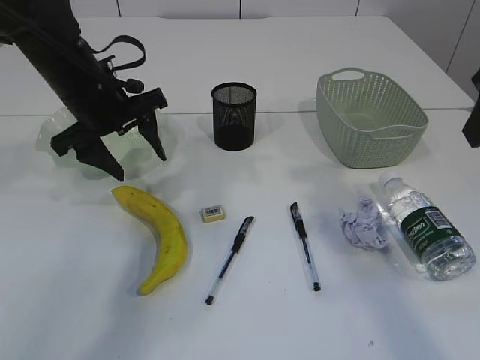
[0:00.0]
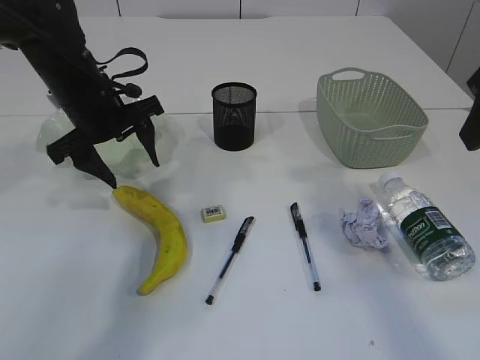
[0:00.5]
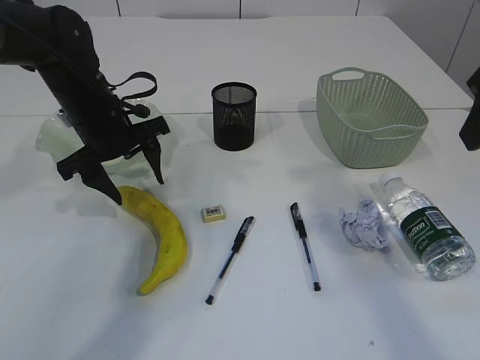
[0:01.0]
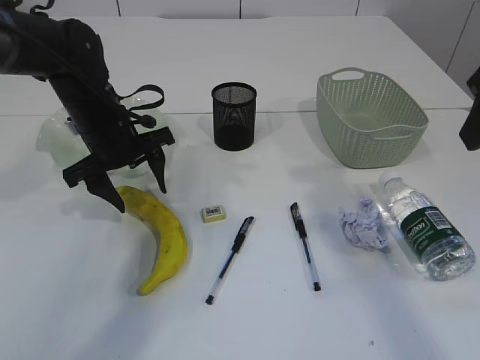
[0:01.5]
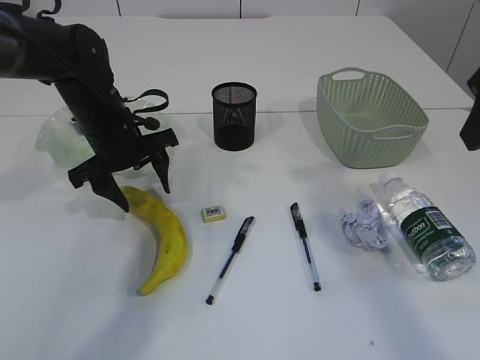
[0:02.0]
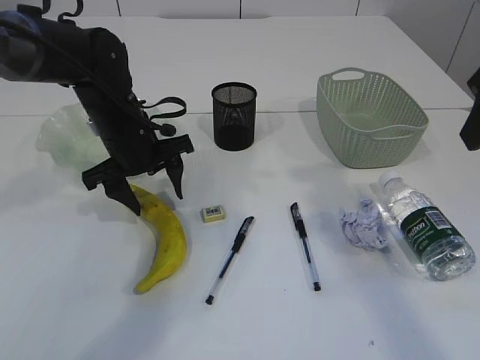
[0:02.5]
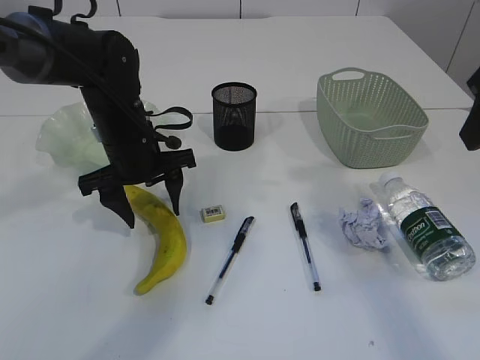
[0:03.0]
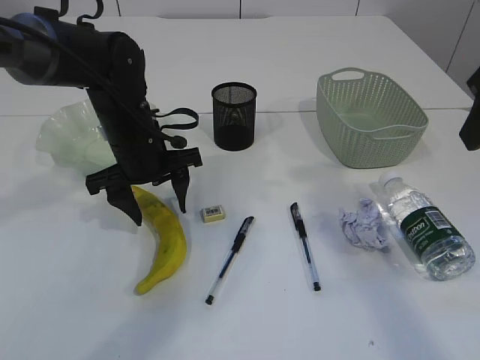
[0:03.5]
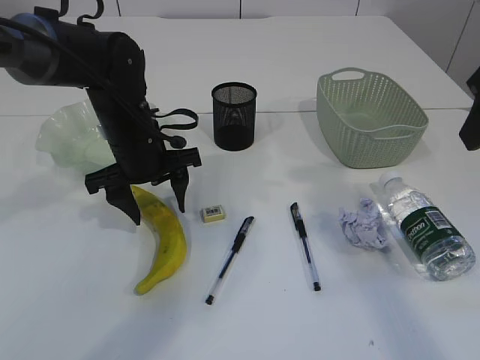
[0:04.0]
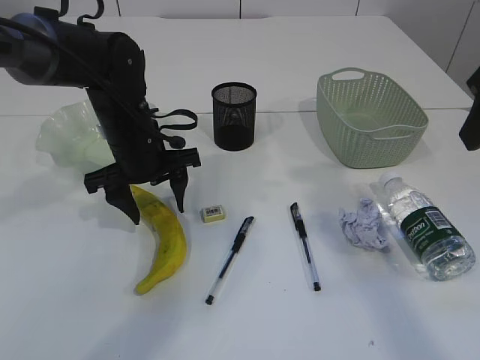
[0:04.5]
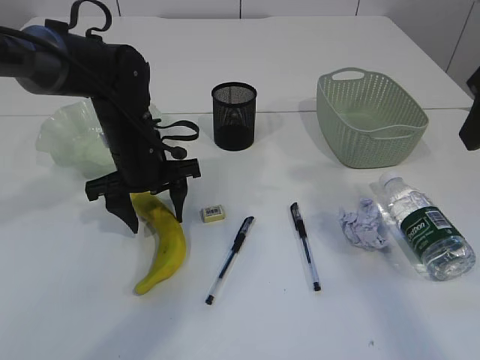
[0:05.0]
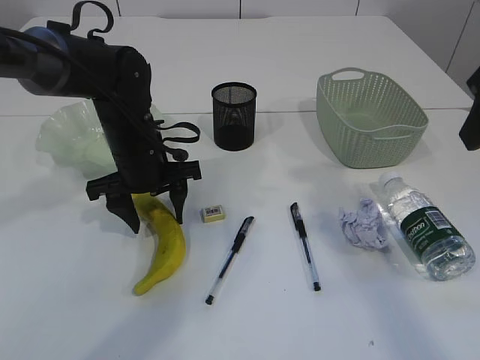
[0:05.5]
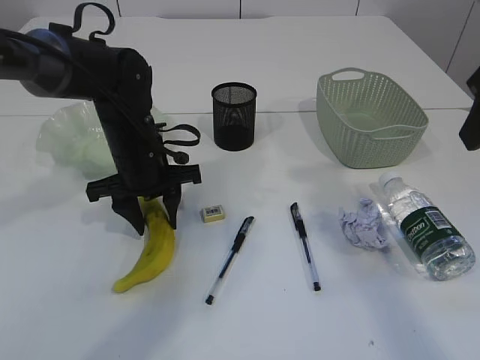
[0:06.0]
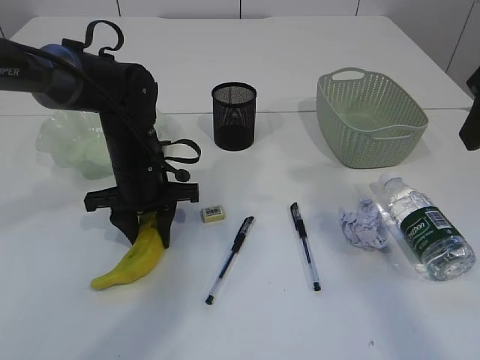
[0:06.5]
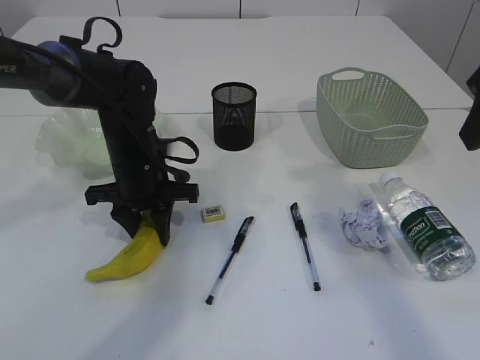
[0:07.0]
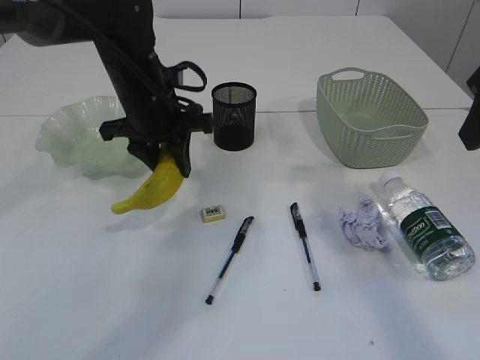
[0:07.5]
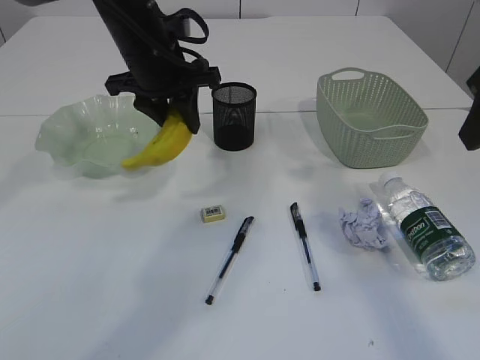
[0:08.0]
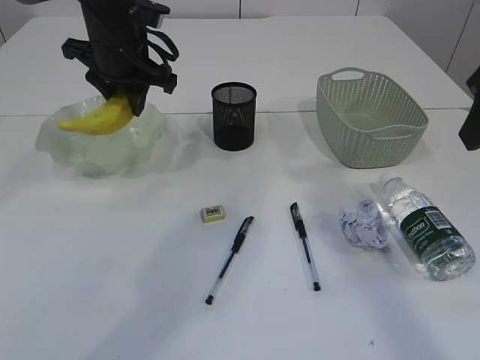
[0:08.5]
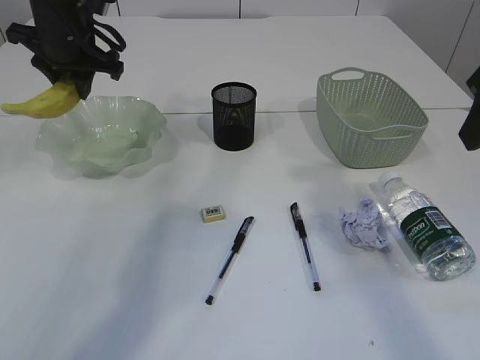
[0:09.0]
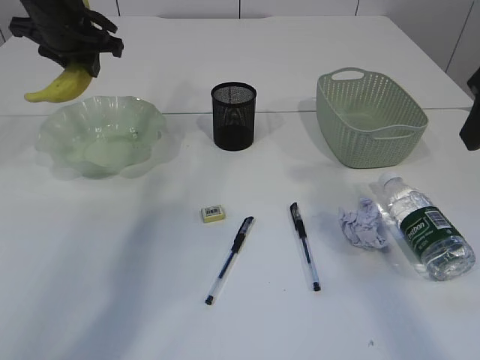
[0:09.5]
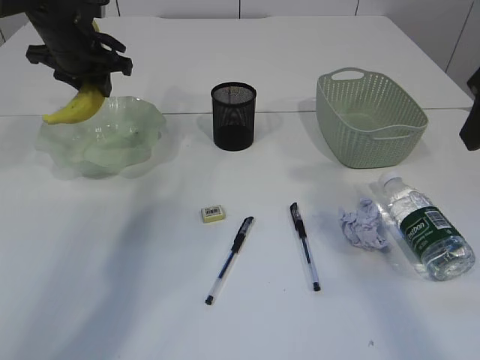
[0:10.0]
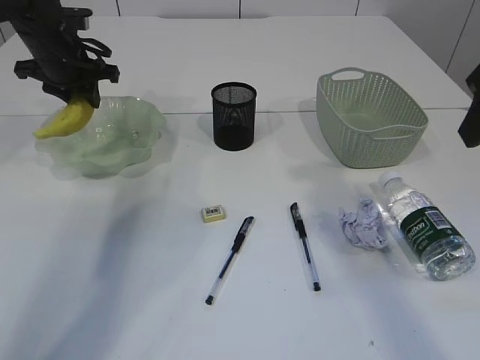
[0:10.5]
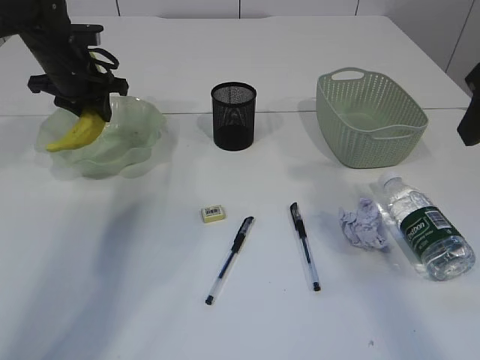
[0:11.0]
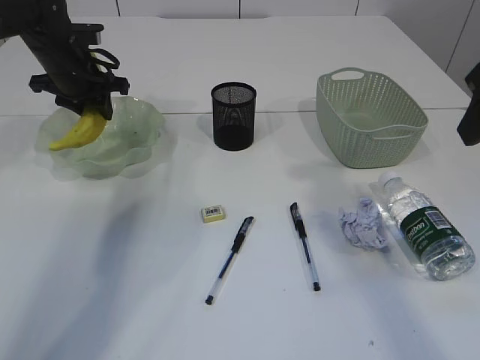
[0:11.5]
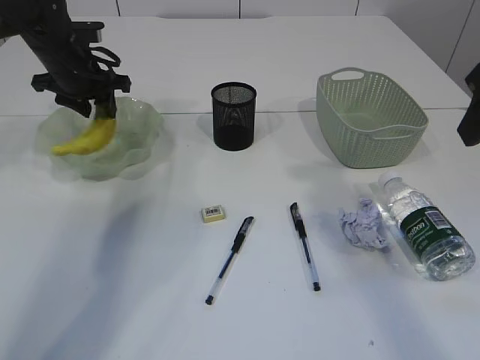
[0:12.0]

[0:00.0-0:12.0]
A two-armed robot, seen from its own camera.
0.0 to 2.0 s: The left gripper goes some 5 cm downward.
2.0 to 4.0 s: There are only small adjustments of the grippers.
4.0 to 6.0 s: The left gripper closes up.
6.0 to 8.0 s: The left gripper heads upward, covering roughly 10 cm, and closes up.
8.0 to 10.0 s: The left gripper travels to the left and forward by about 15 cm.
10.0 to 12.0 s: The grippers stay close to where they were, moving slightly.

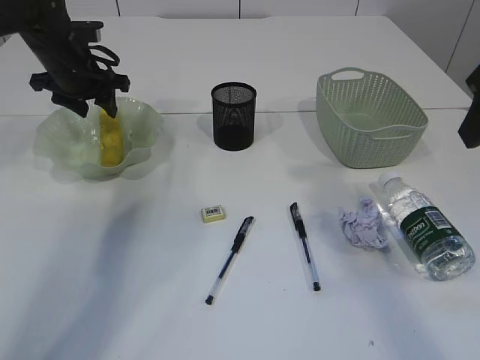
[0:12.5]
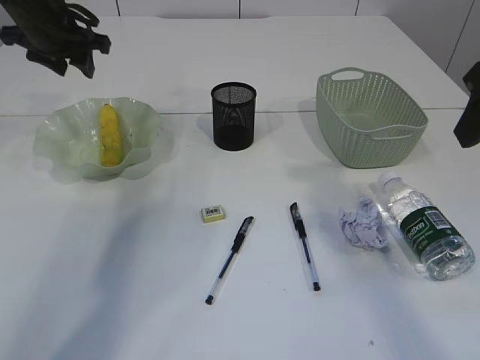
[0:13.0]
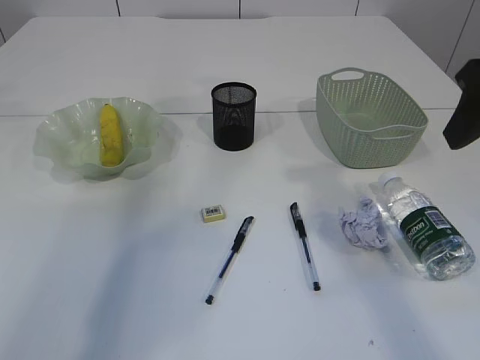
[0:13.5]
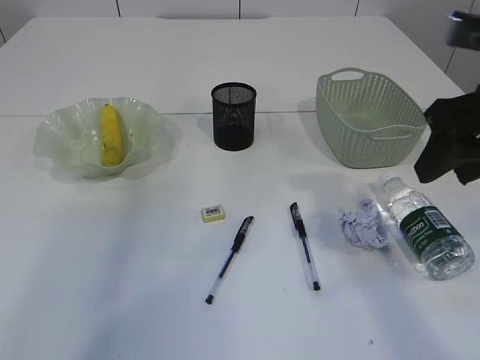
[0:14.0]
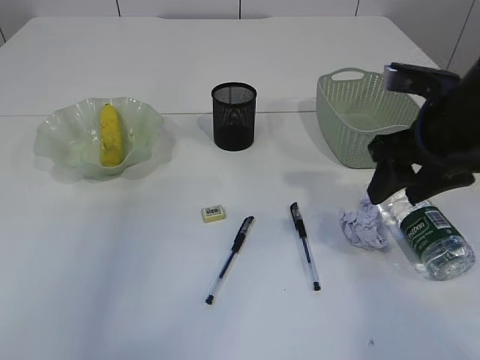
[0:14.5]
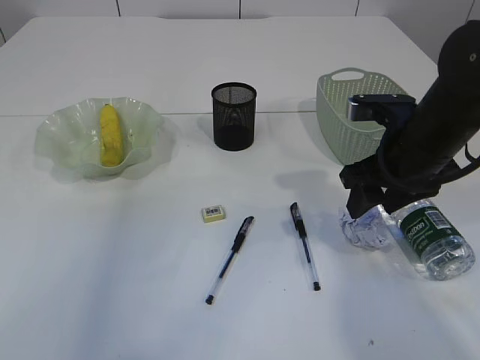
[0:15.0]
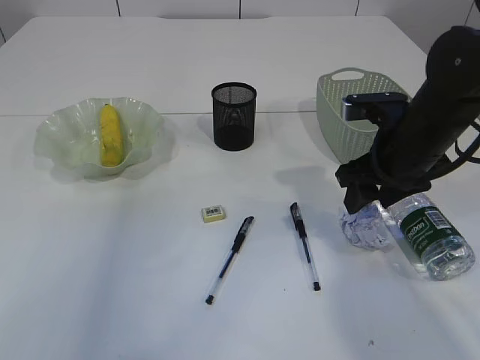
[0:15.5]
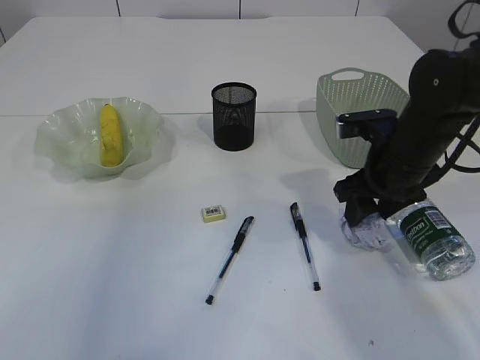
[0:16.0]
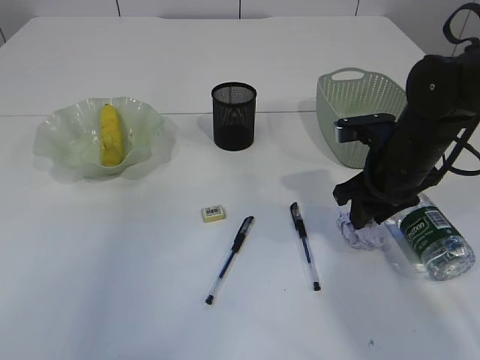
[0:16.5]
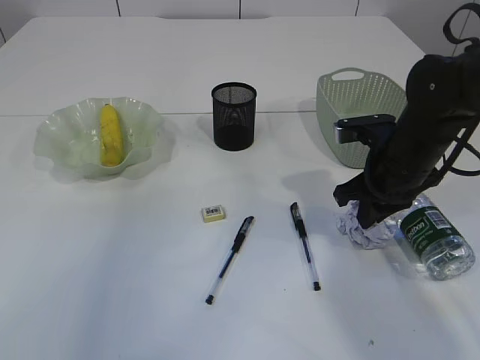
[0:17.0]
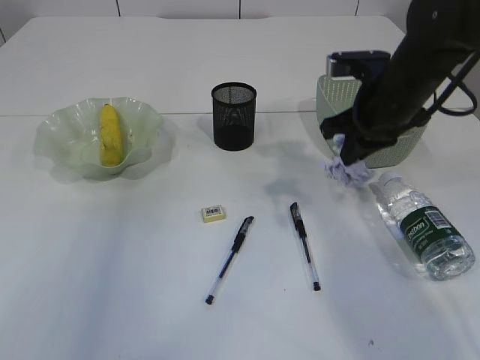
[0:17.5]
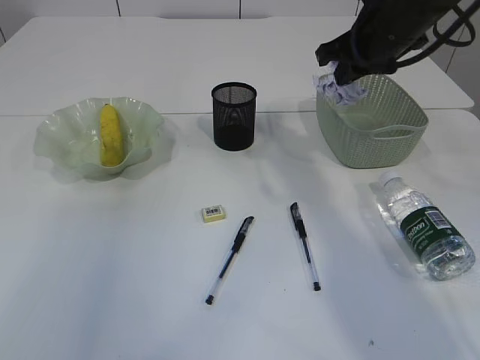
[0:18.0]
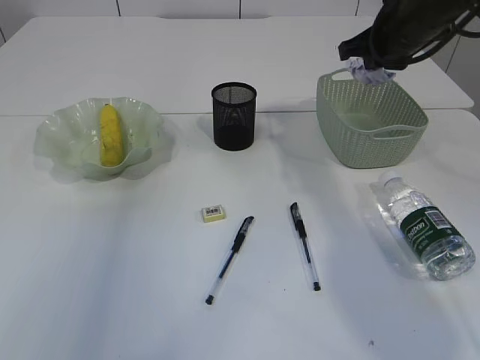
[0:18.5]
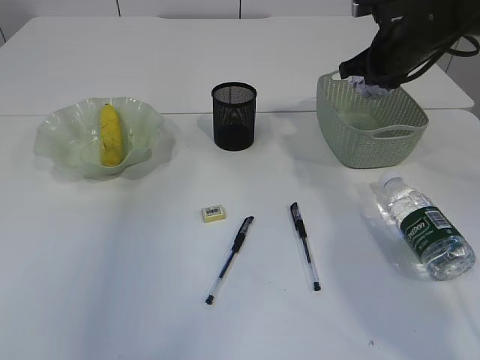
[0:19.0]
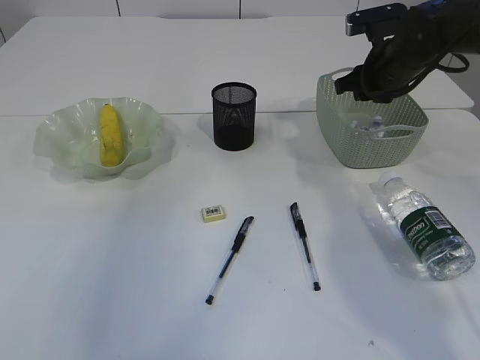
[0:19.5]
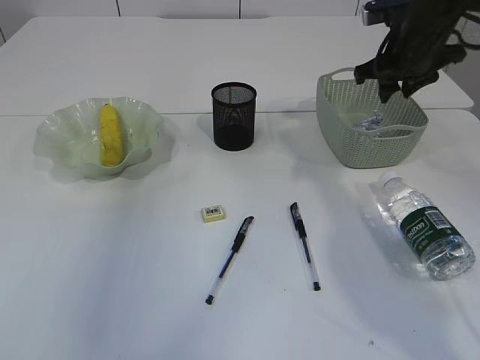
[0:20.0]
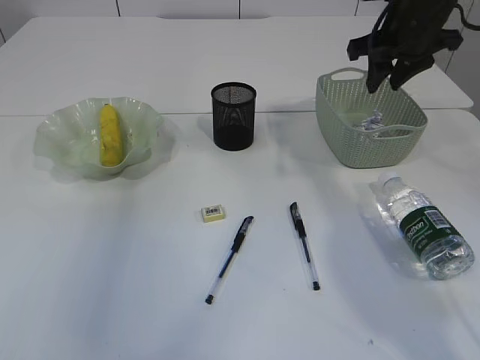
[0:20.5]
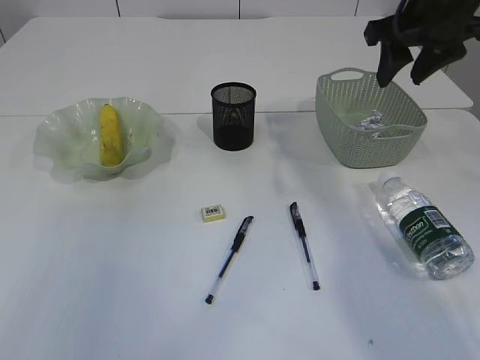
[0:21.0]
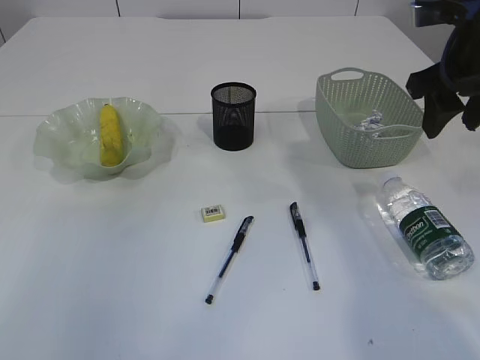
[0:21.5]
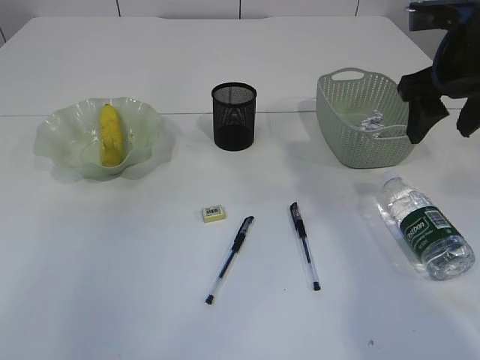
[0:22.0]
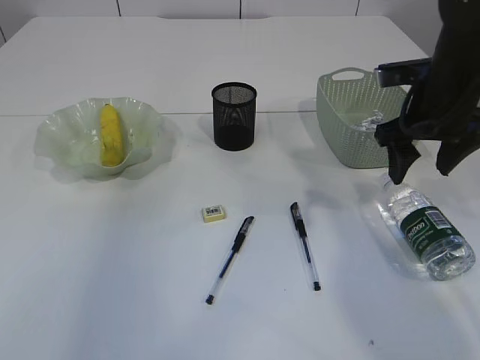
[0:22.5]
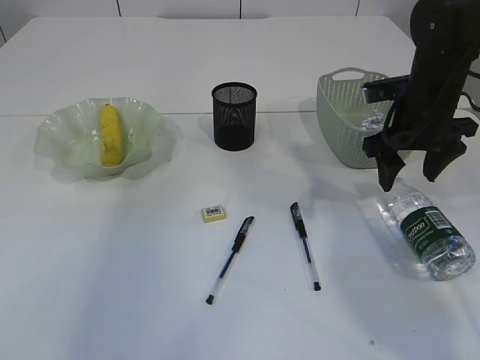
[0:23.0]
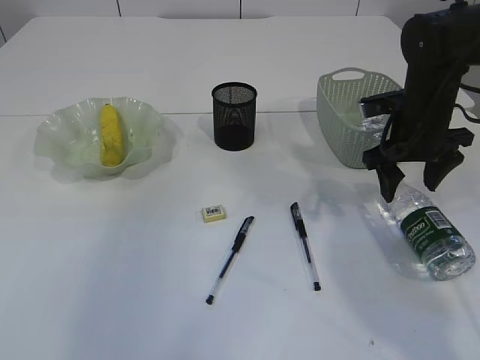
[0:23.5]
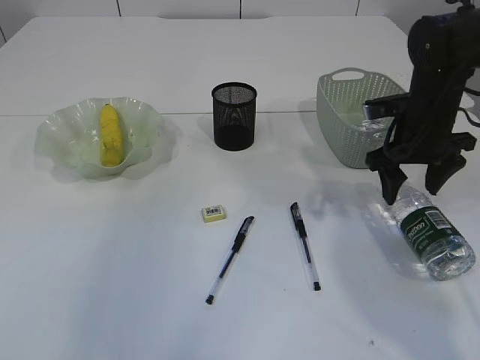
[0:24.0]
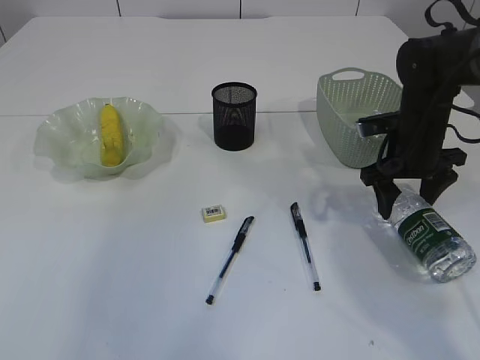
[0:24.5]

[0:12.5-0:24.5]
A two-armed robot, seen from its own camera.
Step, 13.0 to 17.0 s: Pick up the waste paper.
Step, 17.5 to 20.0 s: Place the waste paper in the basket.
12.5 to 14.5 s: The left gripper is displaced upward and backward by approximately 40 cm, and closes. The right gripper heads downward, covering roughly 10 cm.
14.5 to 16.5 s: The right gripper is displaced downward by about 10 cm.
16.5 to 18.5 s: The right gripper is displaced upward and forward by roughly 15 cm, and closes.
18.5 to 20.5 s: The right gripper opens up.
20.5 to 22.5 s: The right gripper moves backward and downward, approximately 10 cm, and opens its fingers.
22.5 to 24.5 s: The right gripper goes roughly 10 cm downward.

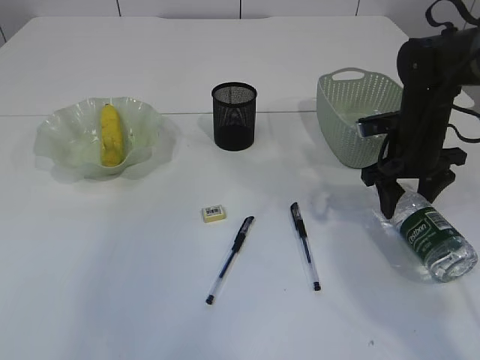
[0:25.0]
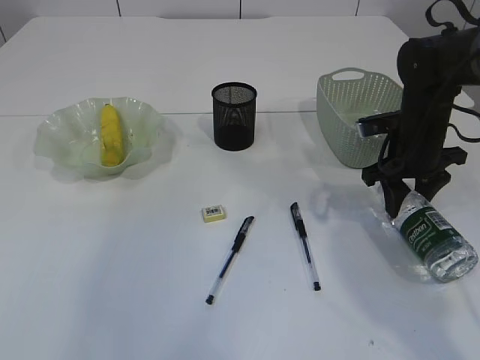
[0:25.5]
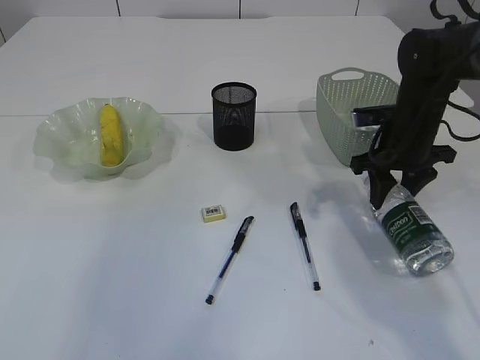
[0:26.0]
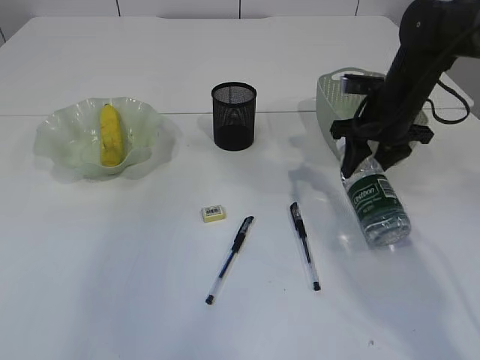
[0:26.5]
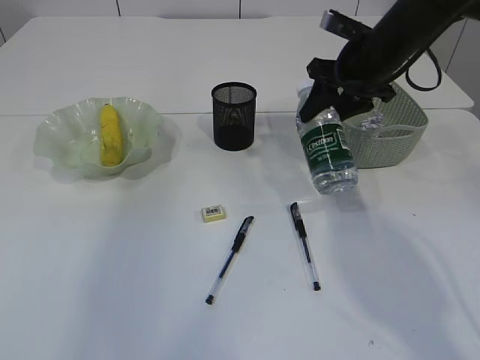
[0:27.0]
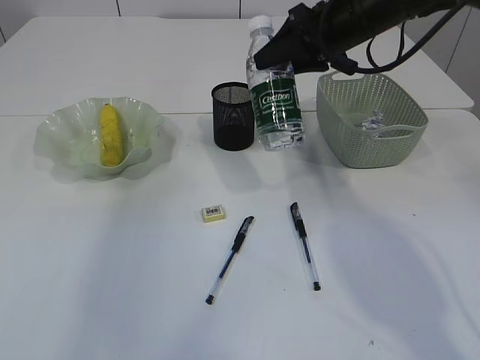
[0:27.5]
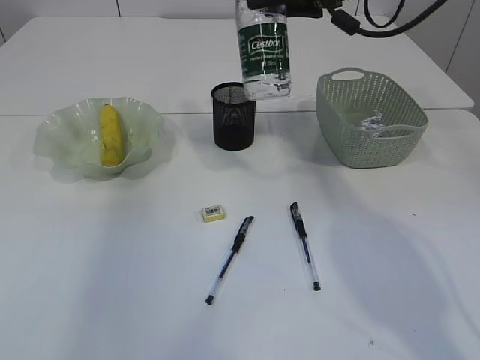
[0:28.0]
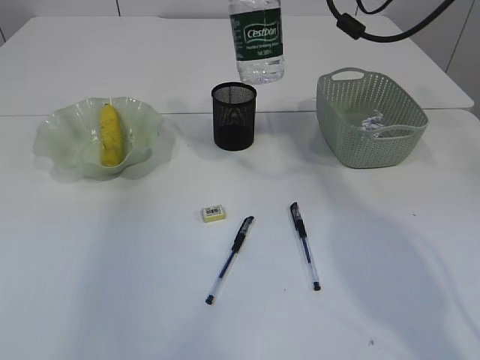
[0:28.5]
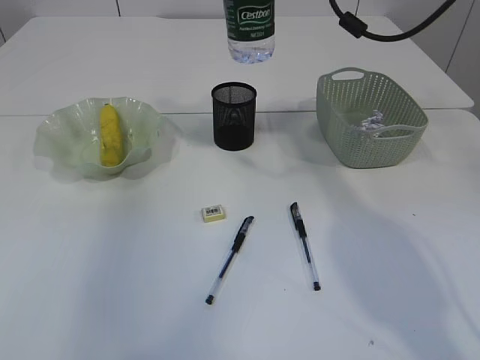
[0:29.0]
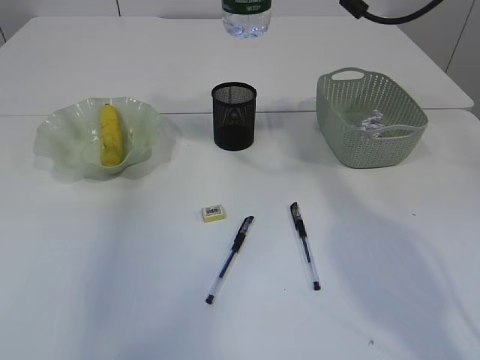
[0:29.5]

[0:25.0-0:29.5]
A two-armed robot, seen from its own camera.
25.0 to 27.0 s: The right gripper shifts some 10 cm upward and to the left.
27.0 to 29.5 s: The left gripper goes roughly 5 cm forward, while the right gripper is displaced upward by approximately 15 cm.
